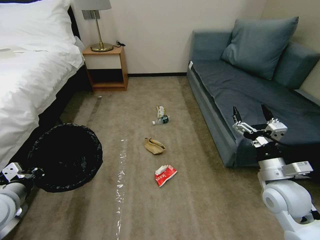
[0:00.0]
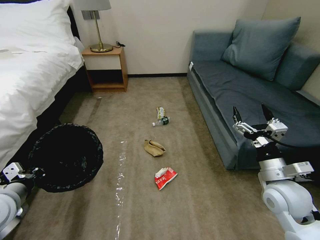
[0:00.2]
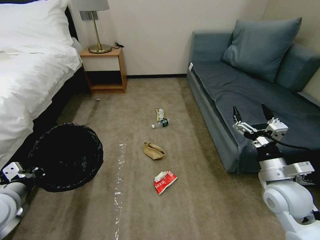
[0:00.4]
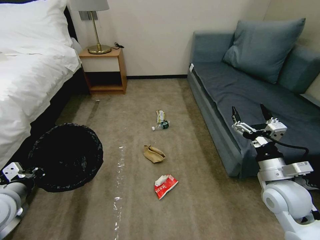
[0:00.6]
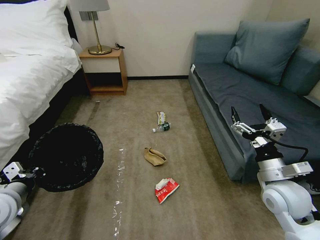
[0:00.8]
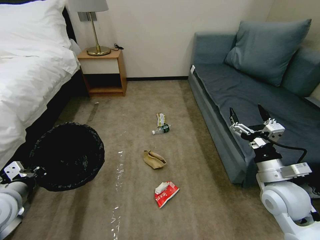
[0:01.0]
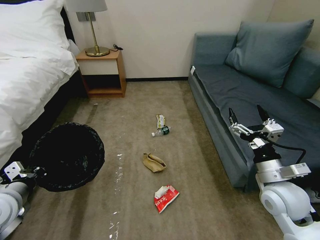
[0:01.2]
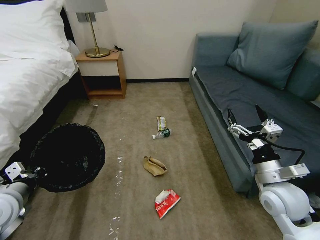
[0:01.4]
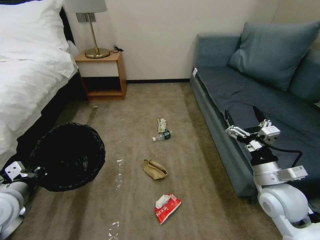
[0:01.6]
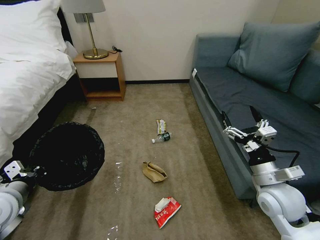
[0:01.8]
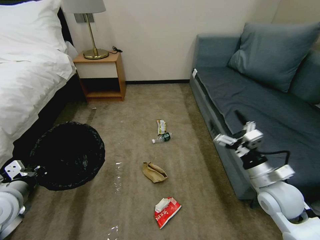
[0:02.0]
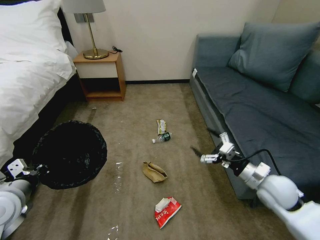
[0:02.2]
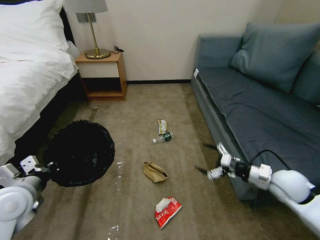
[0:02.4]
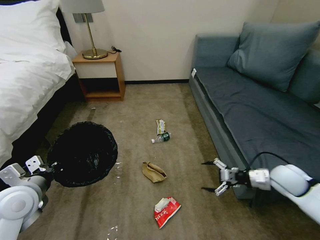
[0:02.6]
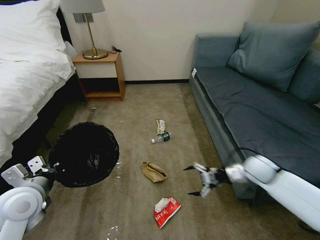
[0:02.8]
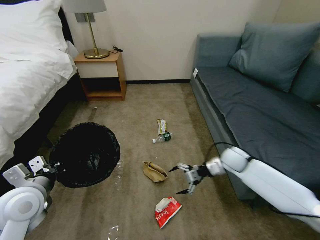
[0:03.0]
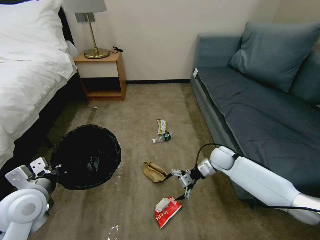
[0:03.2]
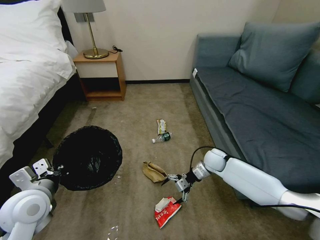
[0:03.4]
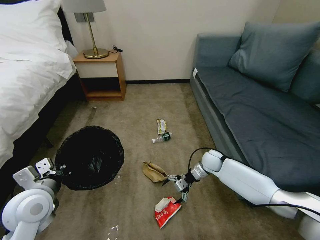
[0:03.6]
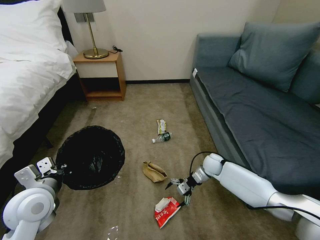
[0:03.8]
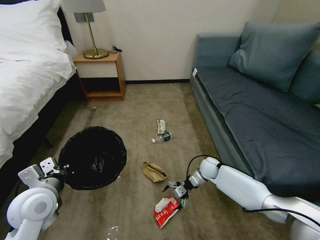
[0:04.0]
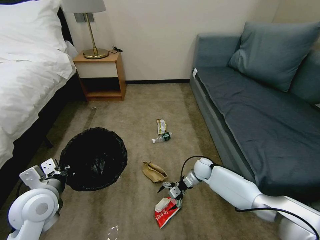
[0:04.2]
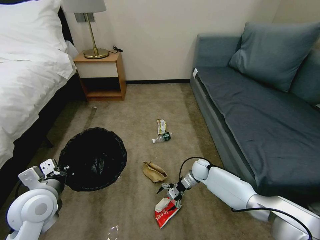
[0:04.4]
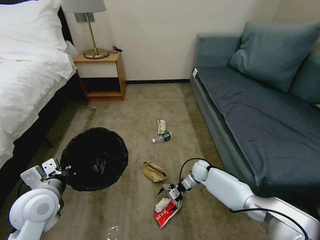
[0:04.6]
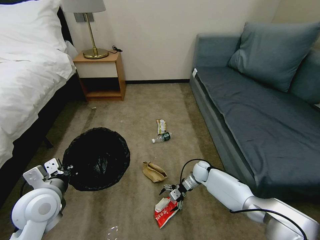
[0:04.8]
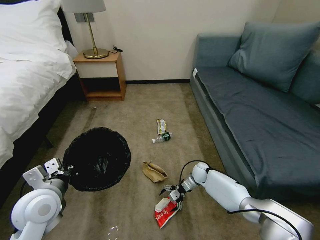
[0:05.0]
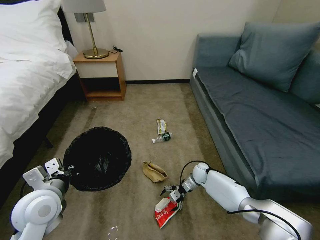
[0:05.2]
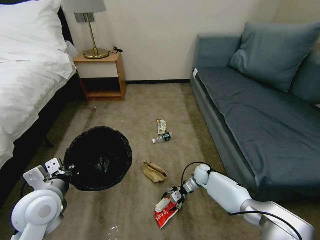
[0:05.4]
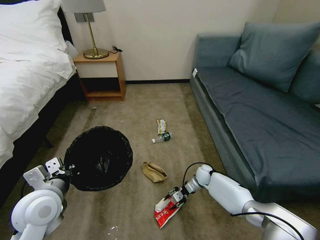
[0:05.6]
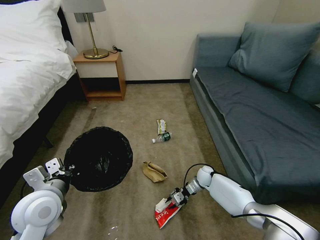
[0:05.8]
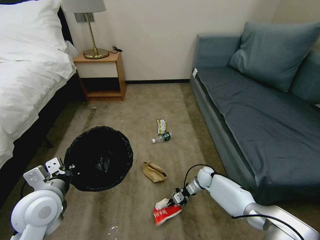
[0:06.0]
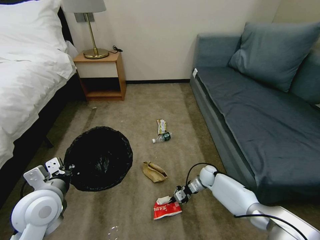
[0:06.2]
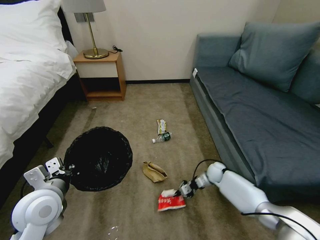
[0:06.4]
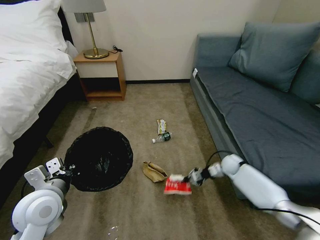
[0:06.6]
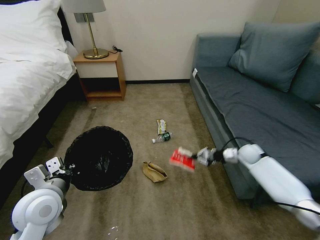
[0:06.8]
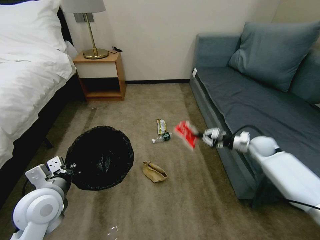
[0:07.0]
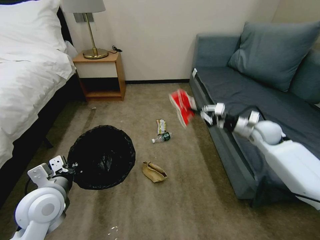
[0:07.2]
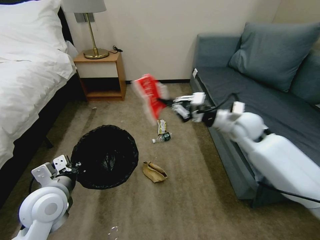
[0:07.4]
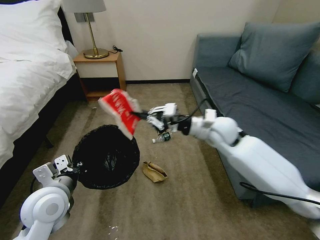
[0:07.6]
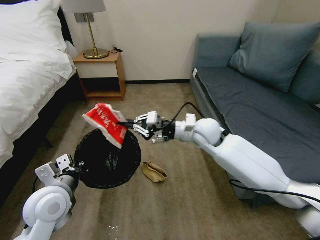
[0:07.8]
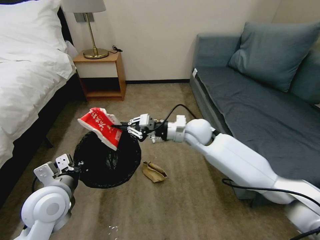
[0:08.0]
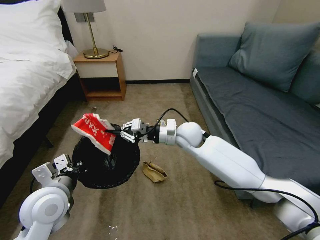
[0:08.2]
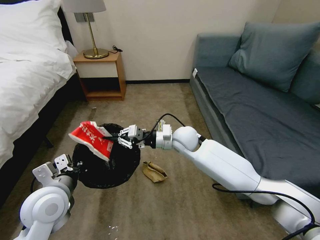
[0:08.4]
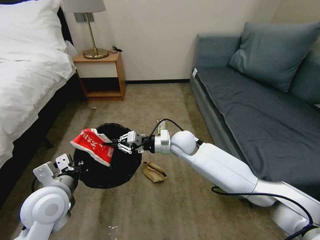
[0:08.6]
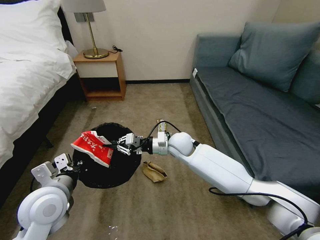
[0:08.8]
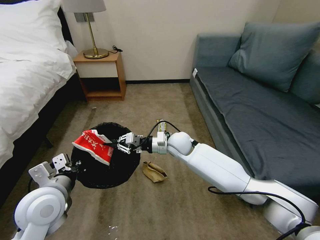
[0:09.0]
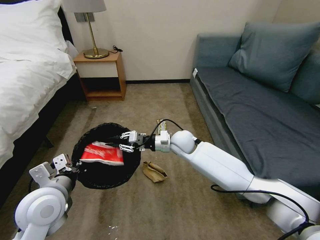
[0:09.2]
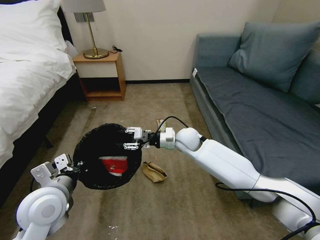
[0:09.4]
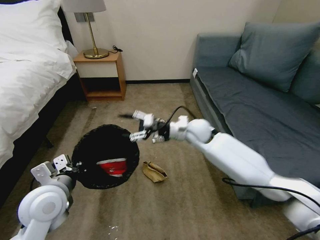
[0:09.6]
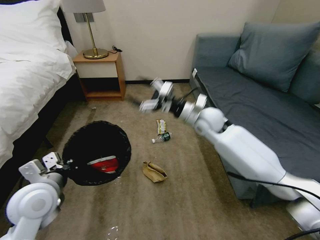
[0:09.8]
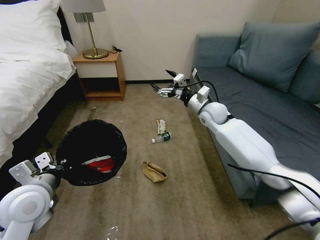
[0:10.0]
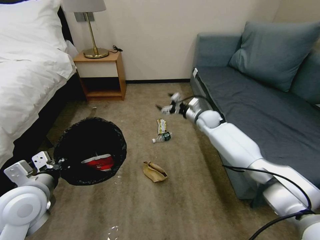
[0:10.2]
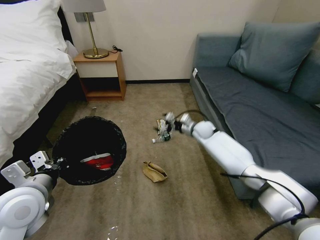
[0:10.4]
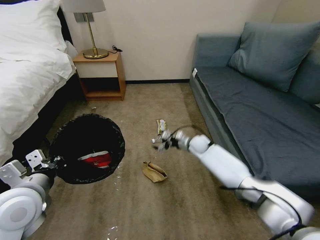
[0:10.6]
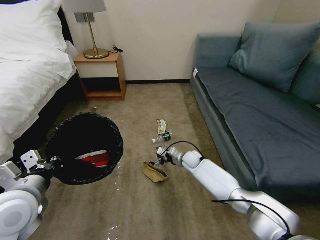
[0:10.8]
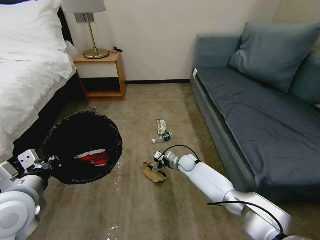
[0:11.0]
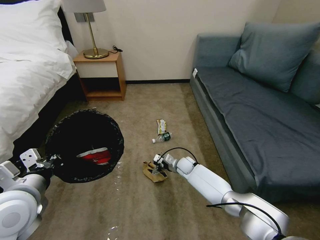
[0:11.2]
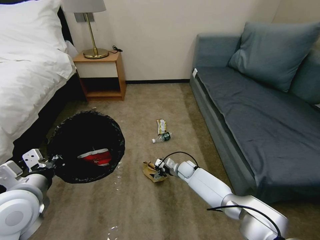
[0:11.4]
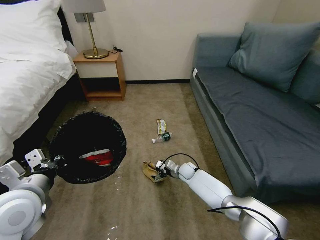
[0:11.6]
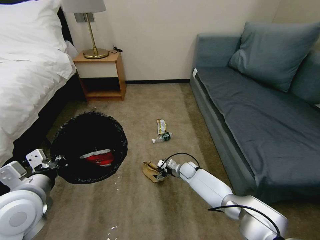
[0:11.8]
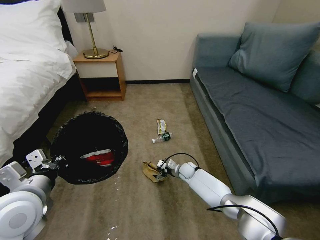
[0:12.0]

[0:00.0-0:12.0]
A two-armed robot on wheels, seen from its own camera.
Task of the whole recording: Pick up the trash bin, then pick up the garbage on the floor and place it into the trash bin.
0:01.6 to 0:03.0: The left gripper shifts by some 5 cm; the right gripper moves forward and downward, roughly 20 cm.
0:03.0 to 0:04.4: The right gripper shifts some 15 cm downward and to the left.
0:04.4 to 0:06.0: The right gripper shifts by approximately 5 cm, and closes its fingers.
0:06.0 to 0:07.6: The right gripper is displaced upward by approximately 35 cm.
0:07.6 to 0:09.0: The right gripper goes some 15 cm to the left and downward.
0:09.0 to 0:10.4: The right gripper travels to the right, forward and downward by approximately 20 cm, and opens up.
0:10.4 to 0:12.0: The right gripper moves downward and backward, approximately 20 cm.

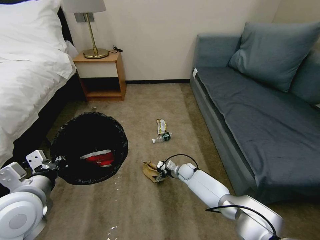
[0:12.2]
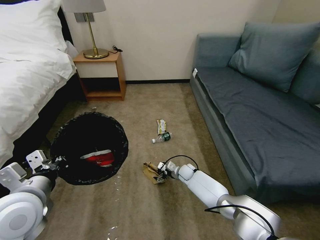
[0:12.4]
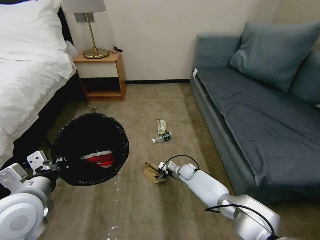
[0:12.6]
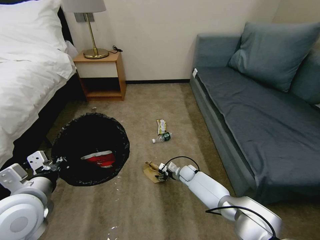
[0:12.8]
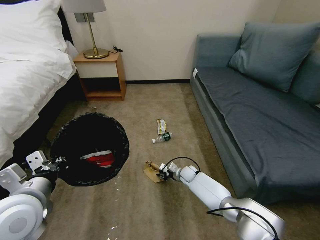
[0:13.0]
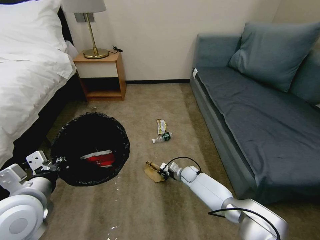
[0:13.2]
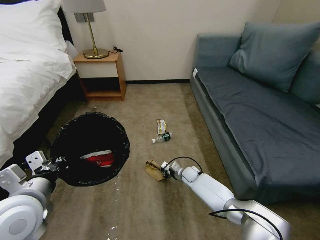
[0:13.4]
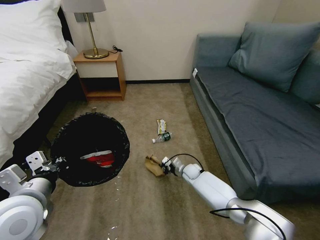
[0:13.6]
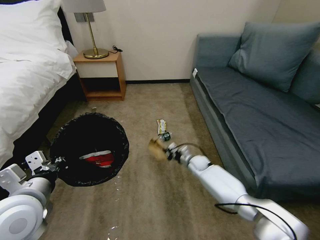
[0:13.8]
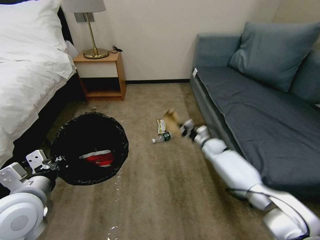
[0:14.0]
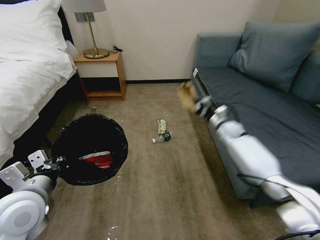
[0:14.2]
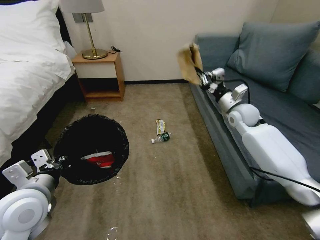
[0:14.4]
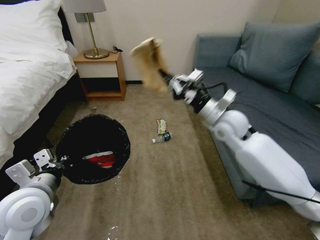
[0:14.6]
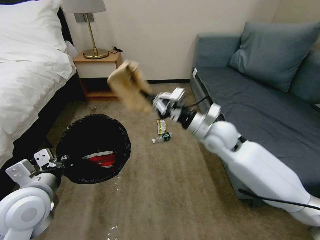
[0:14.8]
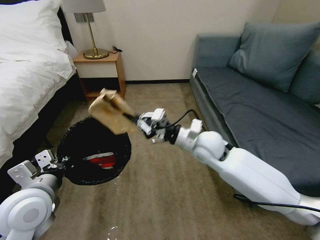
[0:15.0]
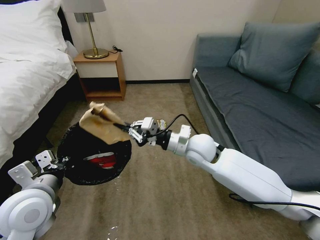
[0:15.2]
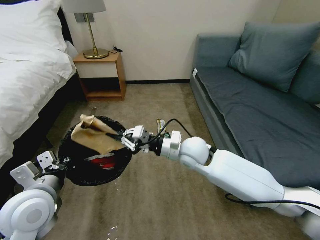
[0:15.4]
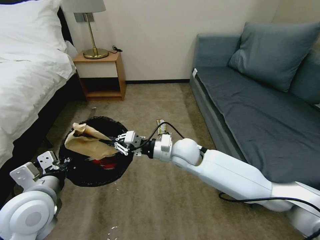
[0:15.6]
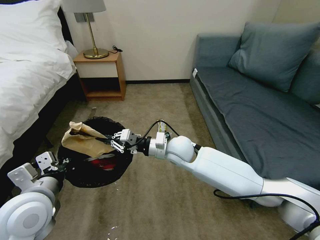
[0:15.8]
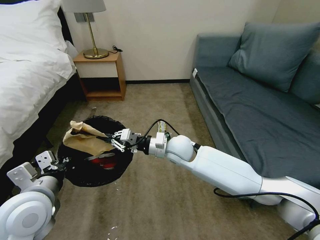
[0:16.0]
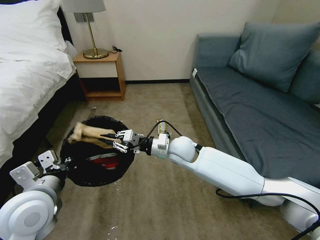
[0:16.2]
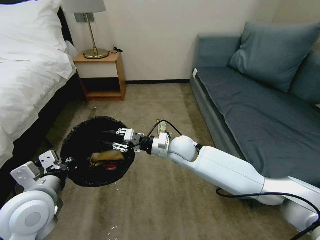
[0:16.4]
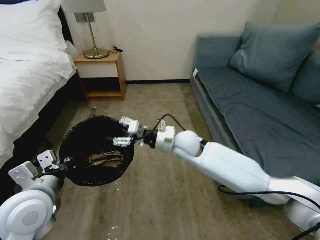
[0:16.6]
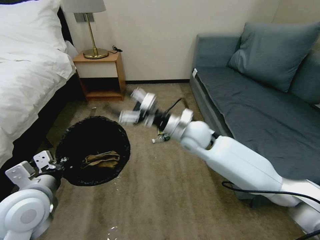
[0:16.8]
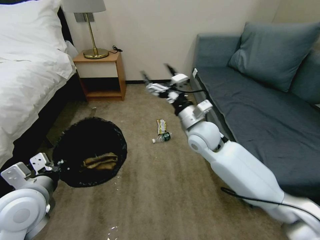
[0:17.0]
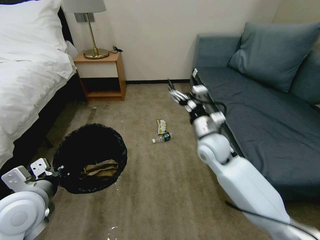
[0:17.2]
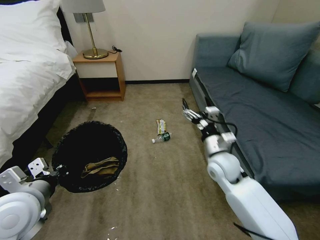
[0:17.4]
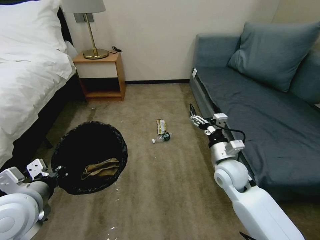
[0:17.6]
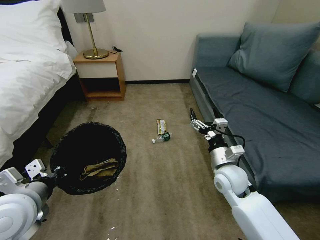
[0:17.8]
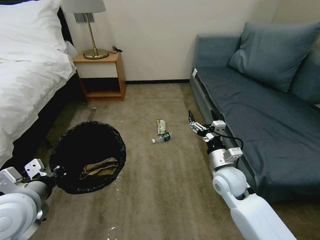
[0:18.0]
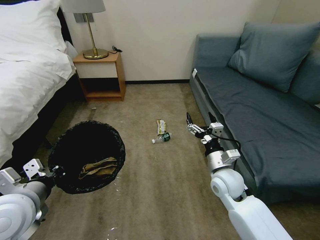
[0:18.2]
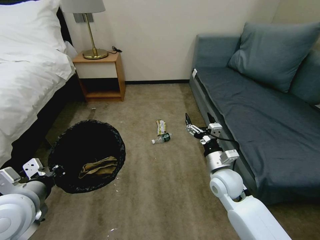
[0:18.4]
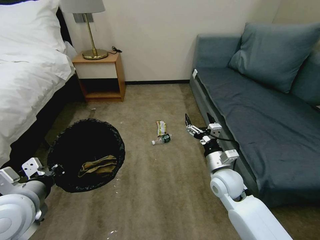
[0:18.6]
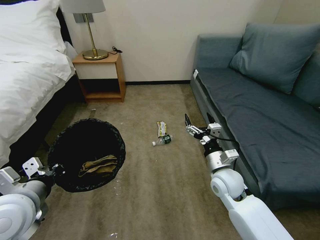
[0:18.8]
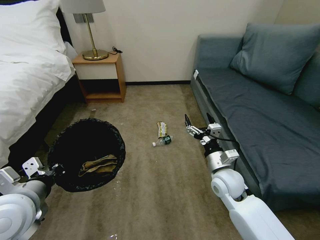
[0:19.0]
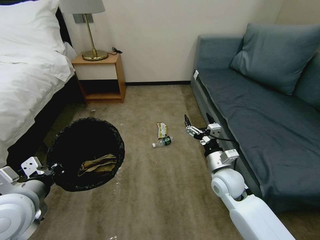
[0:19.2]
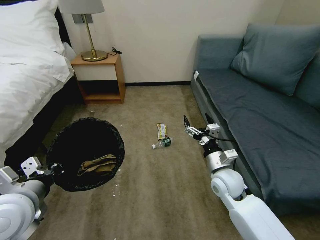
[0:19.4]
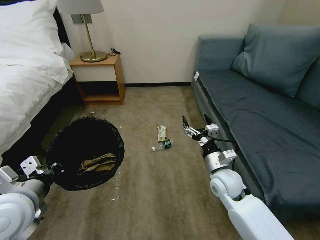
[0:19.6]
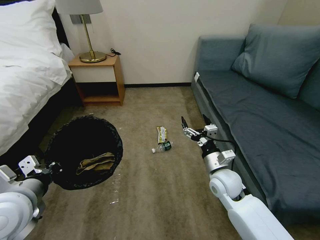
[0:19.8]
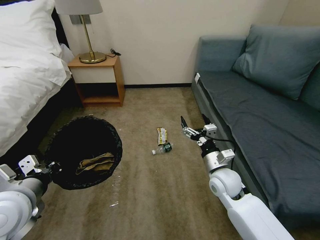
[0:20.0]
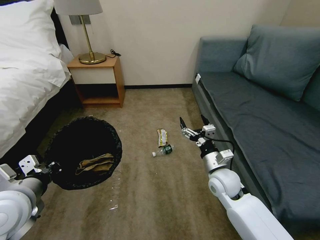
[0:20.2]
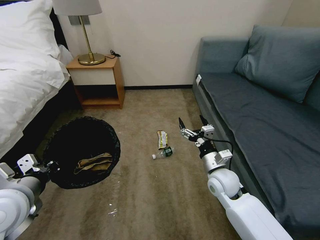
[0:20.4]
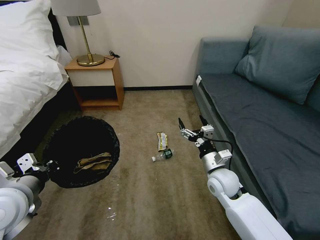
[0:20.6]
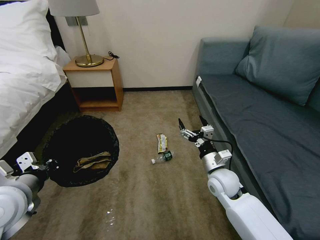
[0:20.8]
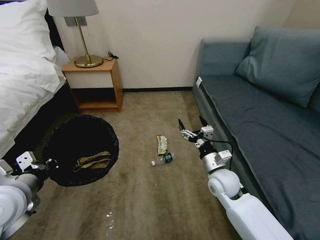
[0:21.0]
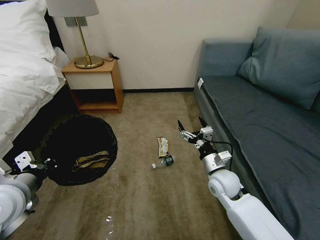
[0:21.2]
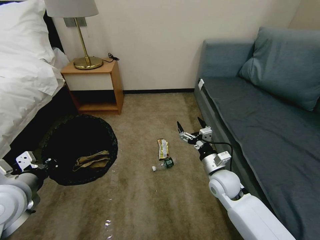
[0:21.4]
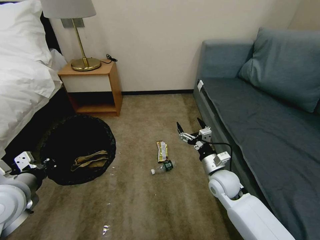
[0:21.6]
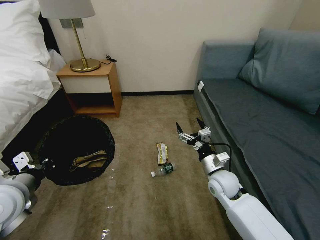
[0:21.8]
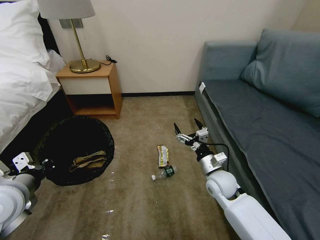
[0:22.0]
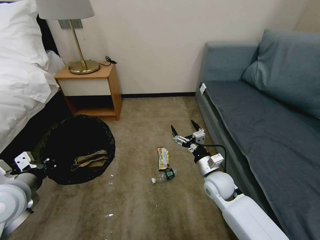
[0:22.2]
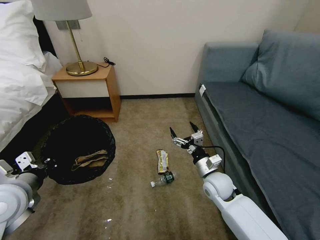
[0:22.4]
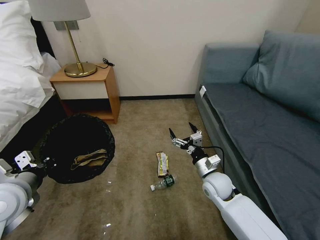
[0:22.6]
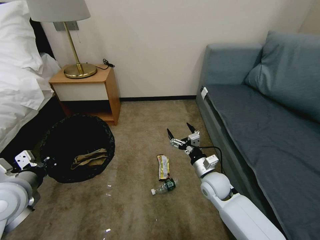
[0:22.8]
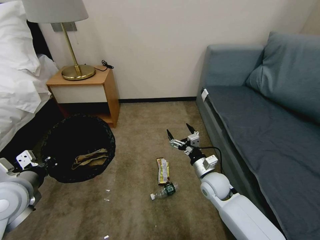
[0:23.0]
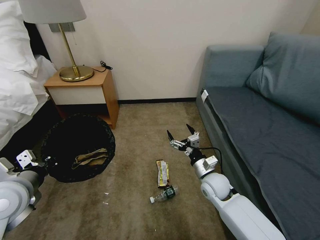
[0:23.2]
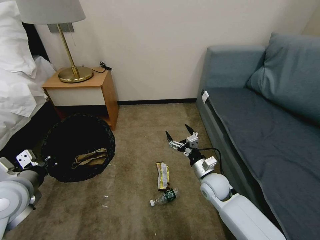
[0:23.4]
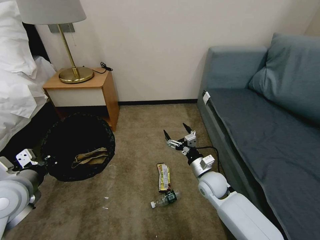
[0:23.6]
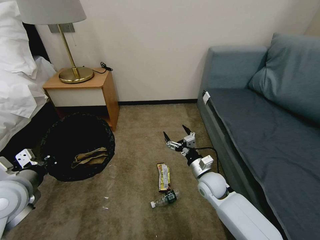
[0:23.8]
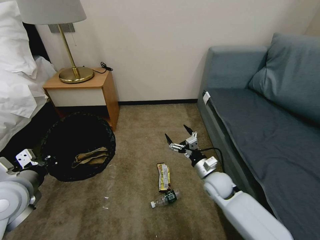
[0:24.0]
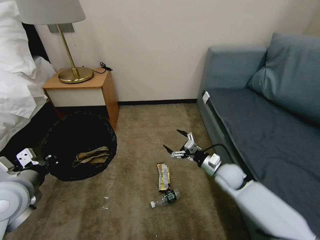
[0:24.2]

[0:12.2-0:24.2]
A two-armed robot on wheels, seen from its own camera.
Task of the whole recording: Pick up the trash bin, then pick up the garbage on the floor and place it into the trash bin.
0:12.2 to 0:13.8: The right gripper moves about 5 cm, and closes.
0:13.8 to 0:15.2: The right gripper is displaced upward by some 25 cm.
0:15.2 to 0:16.6: The right gripper shifts by some 5 cm, and opens up.
0:16.6 to 0:18.2: The right gripper travels to the right, backward and downward by roughly 20 cm, and opens its fingers.
0:18.2 to 0:21.2: The grippers make only small movements.
0:22.6 to 0:24.2: The right gripper changes place by roughly 5 cm.
